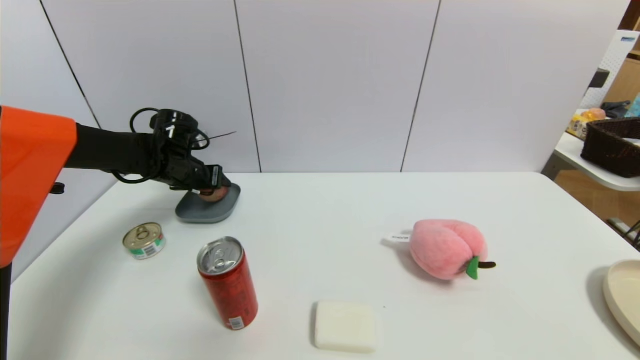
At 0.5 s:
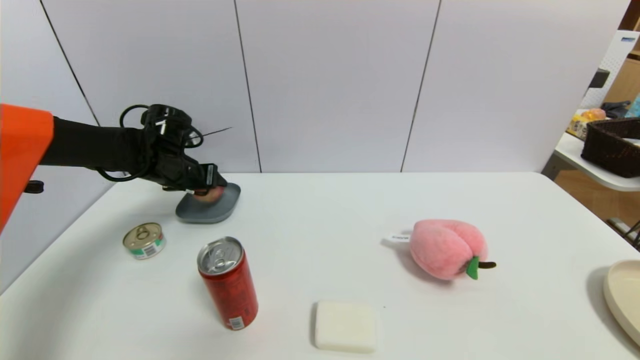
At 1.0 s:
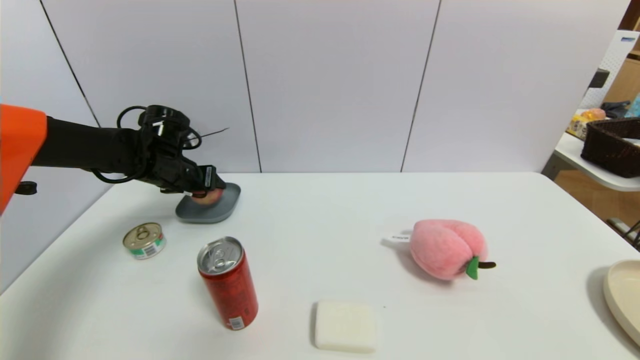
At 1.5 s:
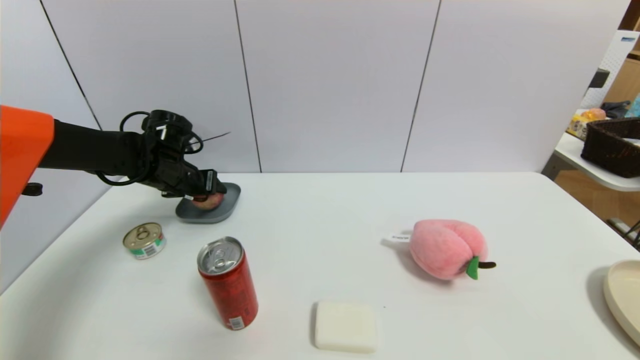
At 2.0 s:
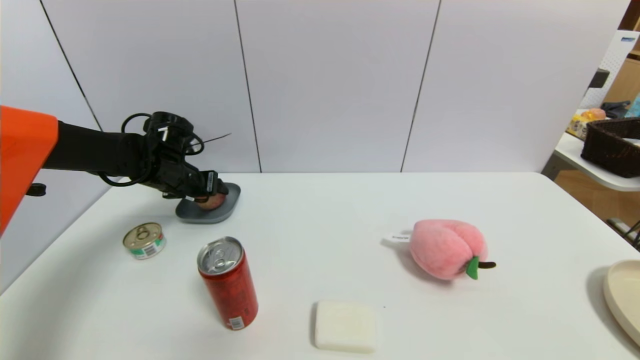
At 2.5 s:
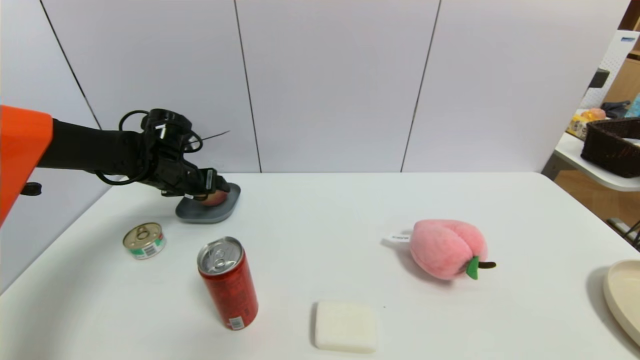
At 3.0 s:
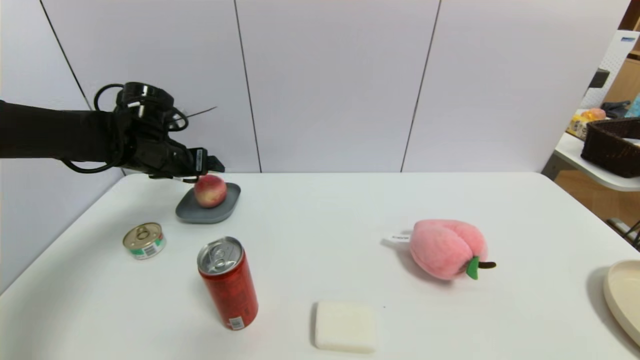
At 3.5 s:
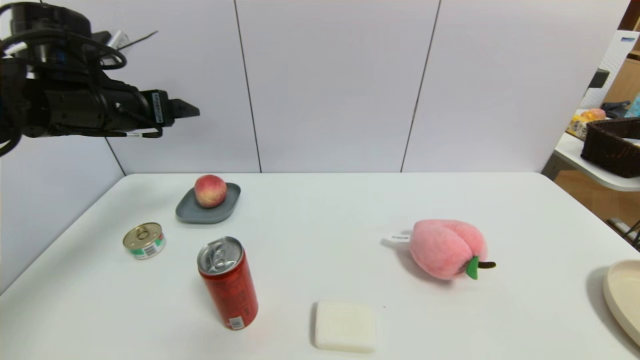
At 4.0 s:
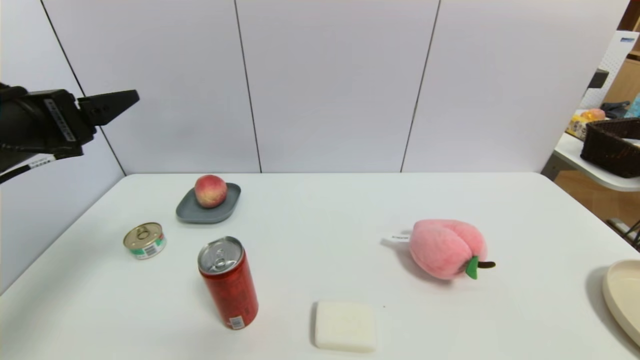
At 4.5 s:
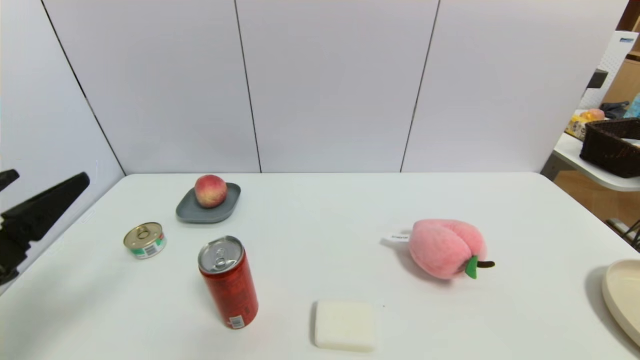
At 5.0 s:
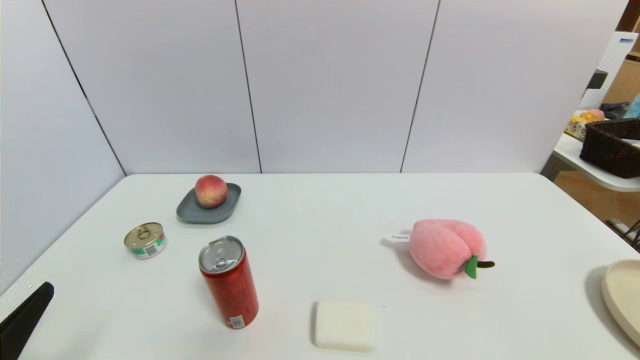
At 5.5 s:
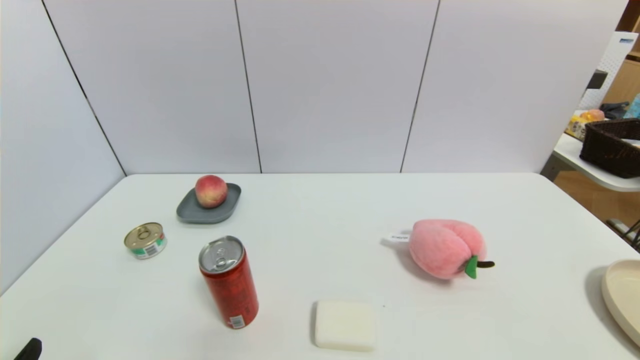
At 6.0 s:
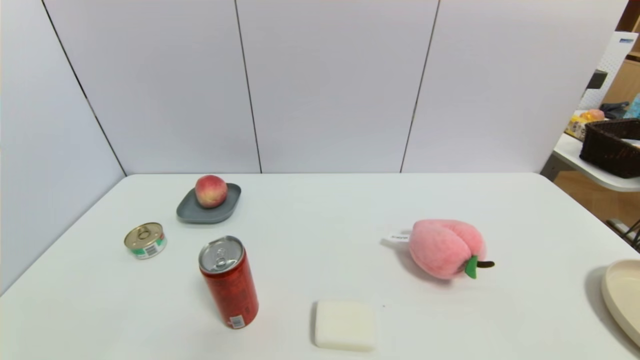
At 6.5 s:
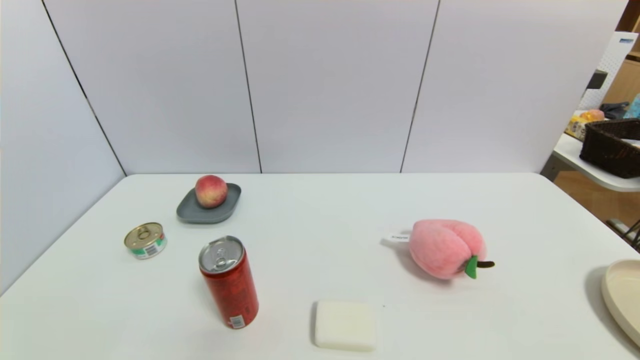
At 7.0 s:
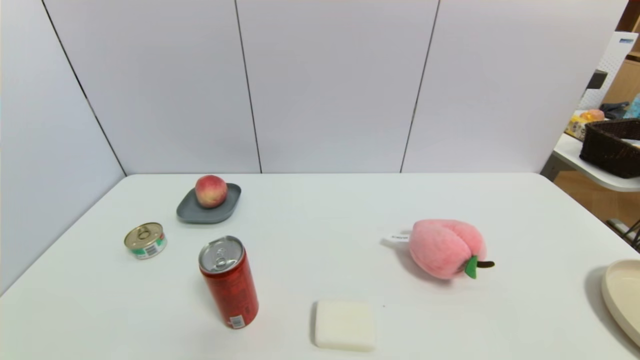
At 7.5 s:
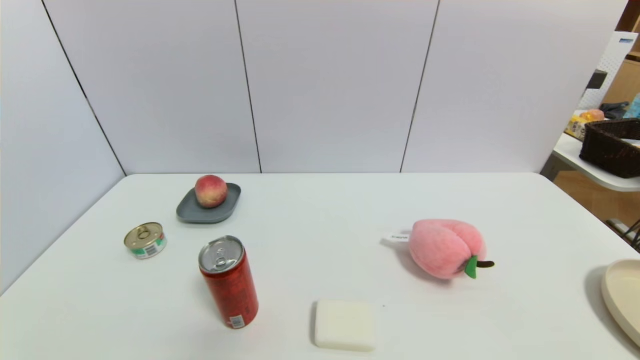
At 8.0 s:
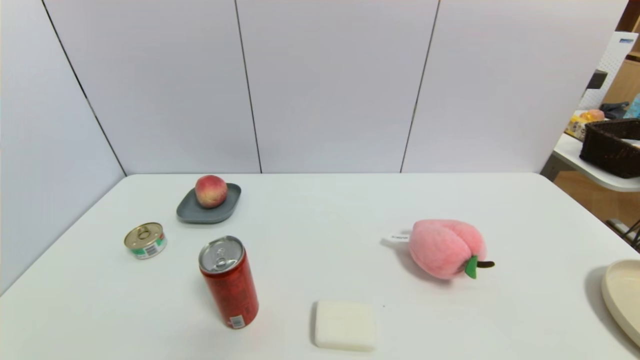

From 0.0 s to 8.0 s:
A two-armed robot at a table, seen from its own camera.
Task of the whole recording: use a gripper to pick the target object and place on the dish.
Step, from 0.0 s to 3.0 s: Place the peach on the dish with the left gripper.
From 0.0 s to 2.0 s: The left gripper opens its fingers.
From 2.0 s to 4.0 s: The left gripper shifts about 25 cm backward and upward, and opens.
From 4.0 s to 6.0 s: The left gripper is displaced downward and backward by about 30 cm.
From 6.0 s to 8.0 s: The two grippers keep their place.
